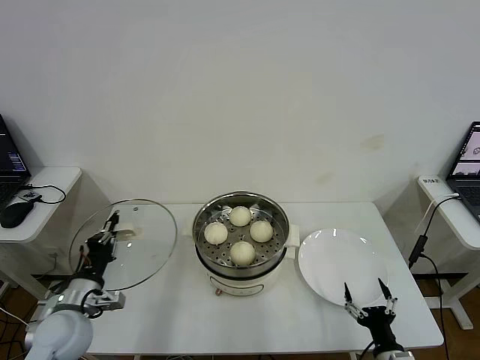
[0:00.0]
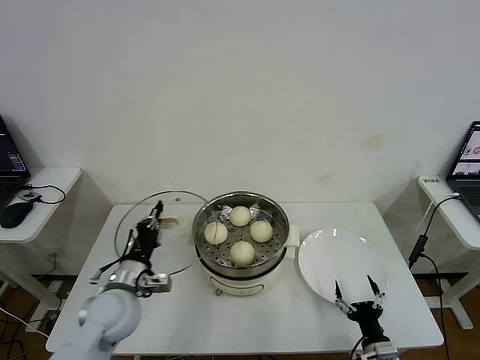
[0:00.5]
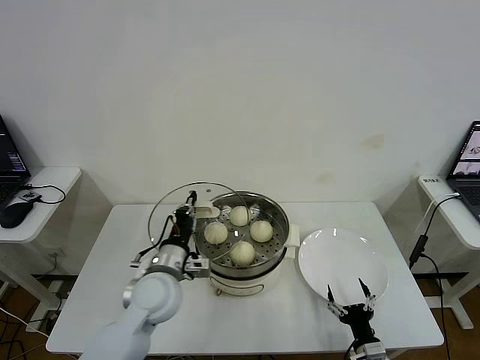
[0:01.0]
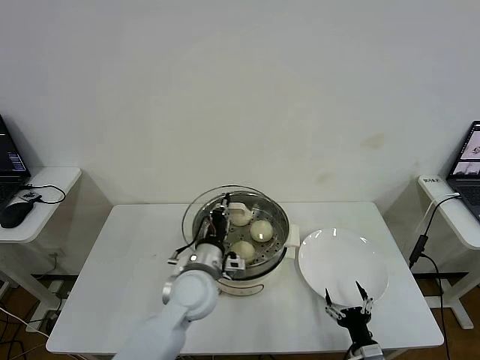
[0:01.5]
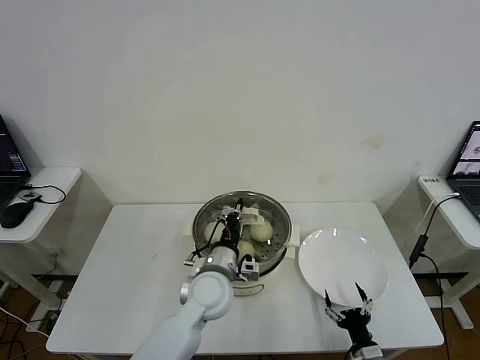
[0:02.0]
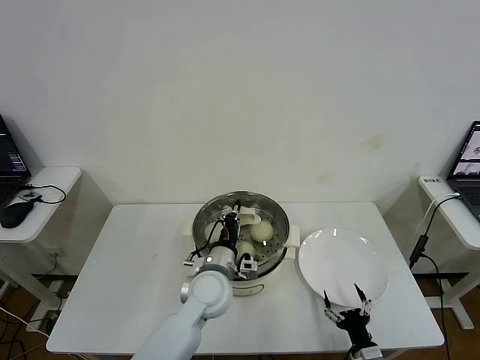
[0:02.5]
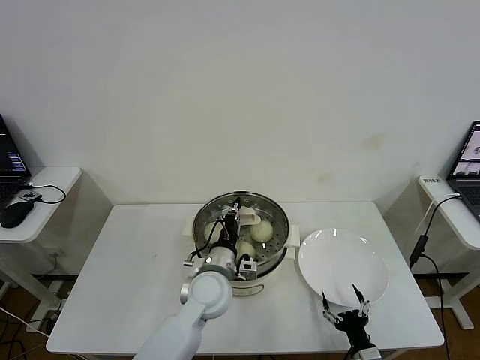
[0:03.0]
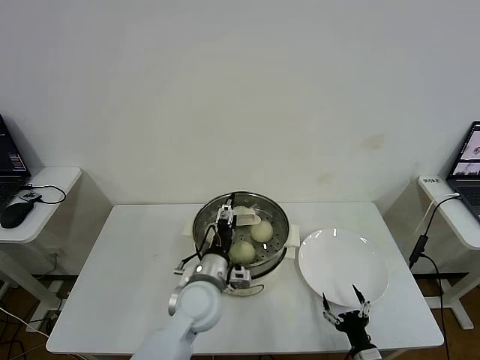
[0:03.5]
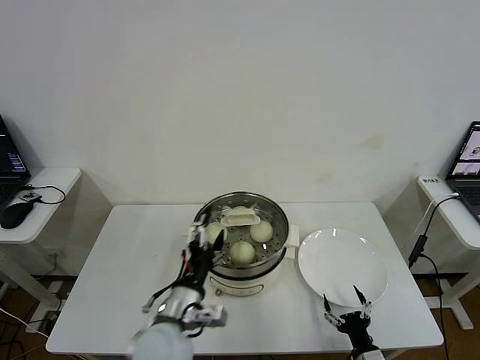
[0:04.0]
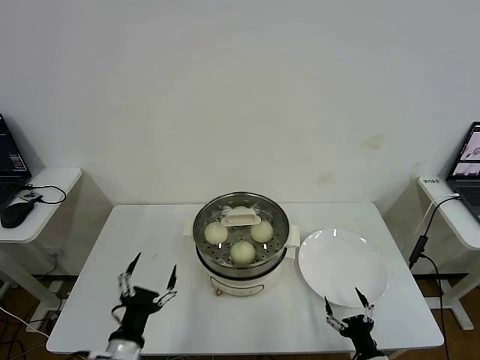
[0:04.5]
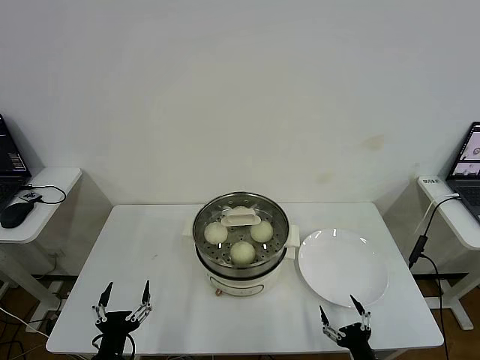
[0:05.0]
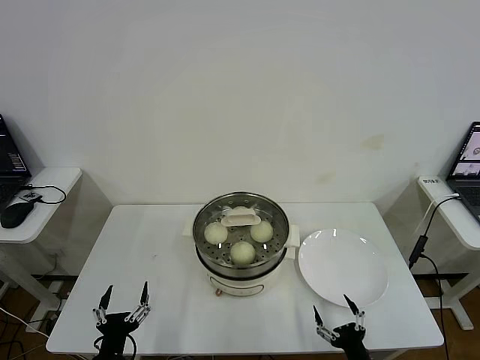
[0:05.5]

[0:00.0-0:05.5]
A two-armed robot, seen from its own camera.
Step, 0:00.0 to 0:03.5: Place the pot lid on the steamer with left gripper.
0:00.0 to 0:02.0: The right gripper moves about 5 cm; the left gripper goes approximately 30 cm to the right.
0:02.0 to 0:03.5: The left gripper opens up.
0:03.5 to 0:05.5: The left gripper moves backward, to the left and downward, approximately 30 cm, while the right gripper shifts by roughly 5 cm.

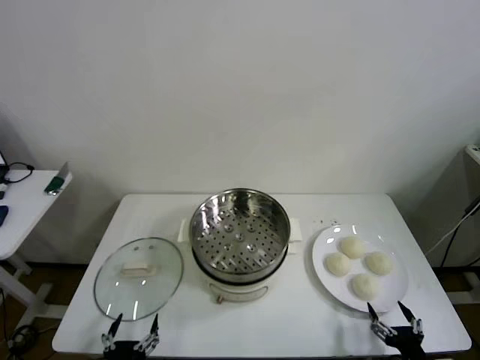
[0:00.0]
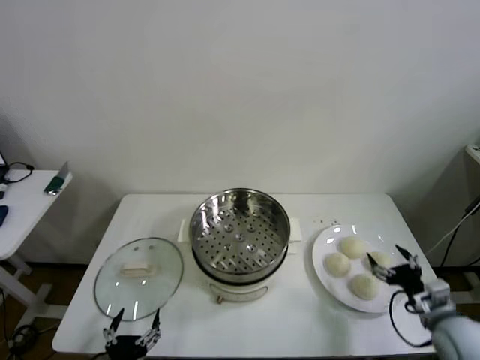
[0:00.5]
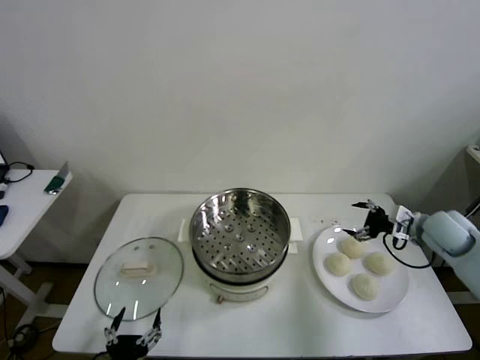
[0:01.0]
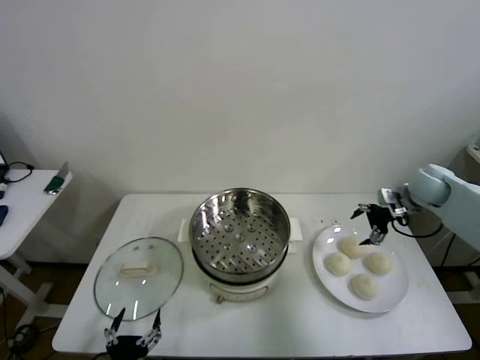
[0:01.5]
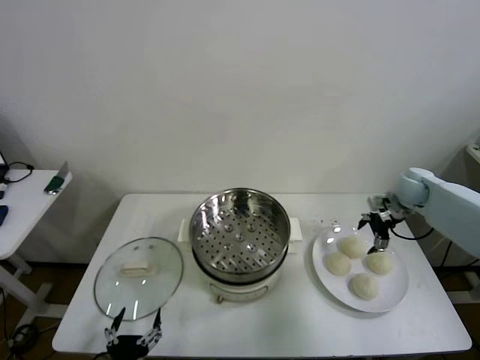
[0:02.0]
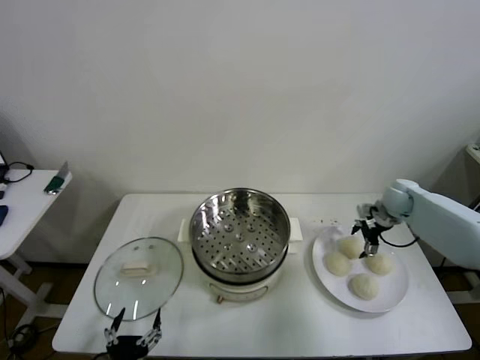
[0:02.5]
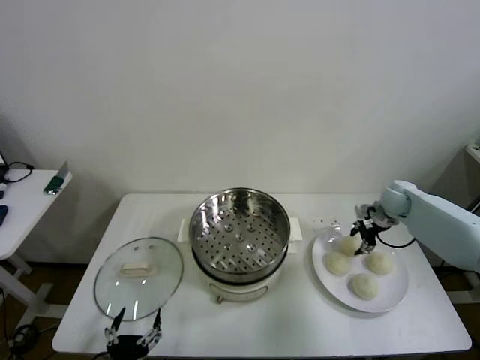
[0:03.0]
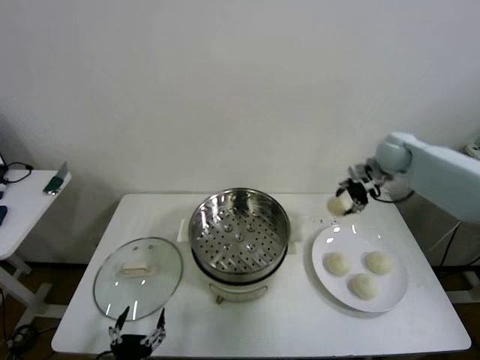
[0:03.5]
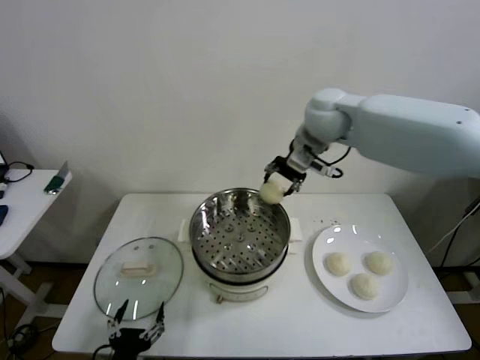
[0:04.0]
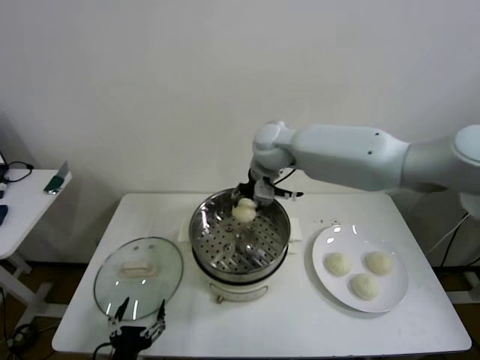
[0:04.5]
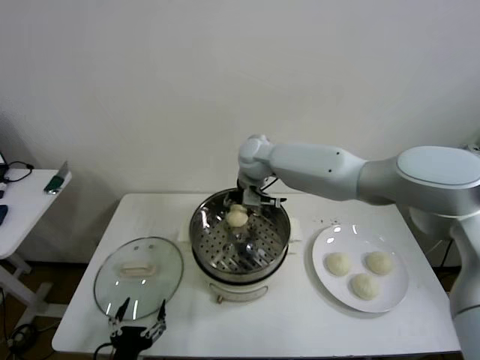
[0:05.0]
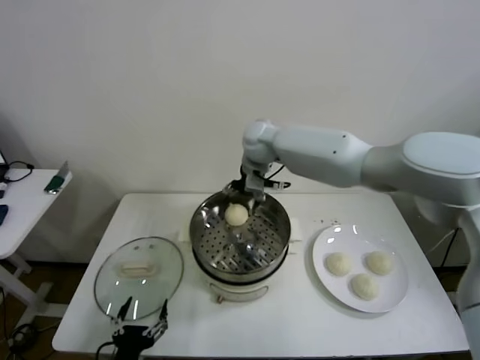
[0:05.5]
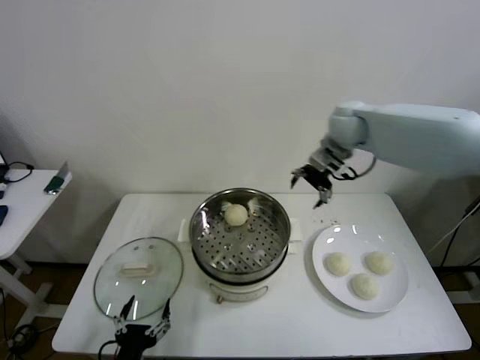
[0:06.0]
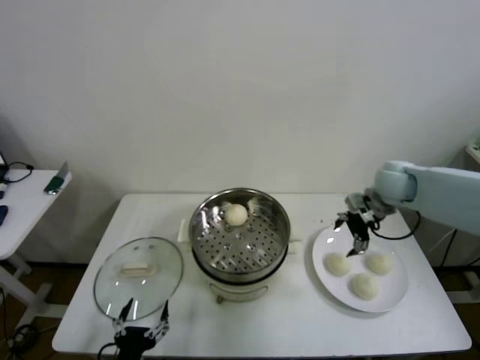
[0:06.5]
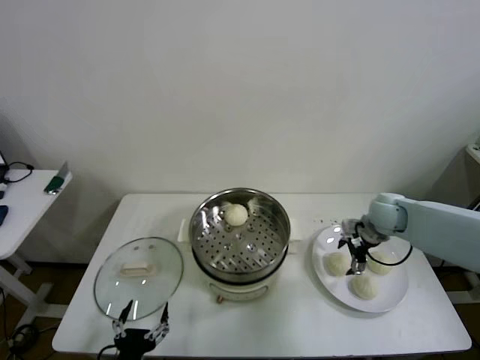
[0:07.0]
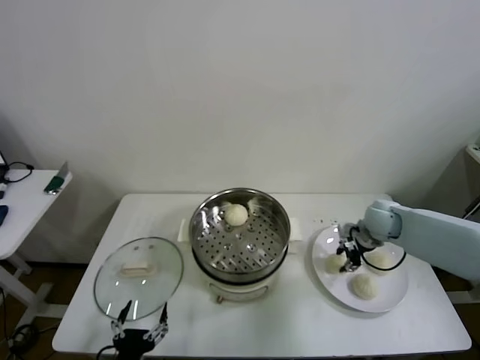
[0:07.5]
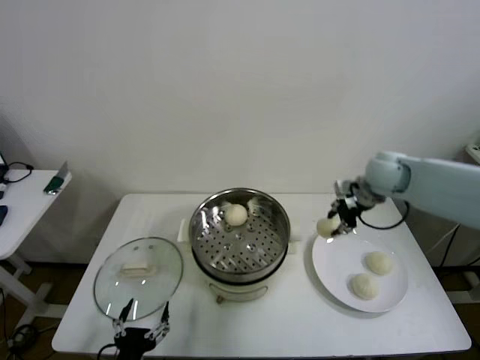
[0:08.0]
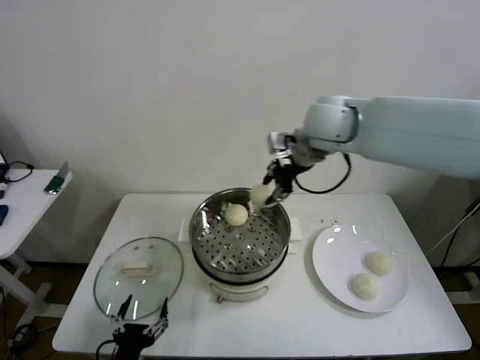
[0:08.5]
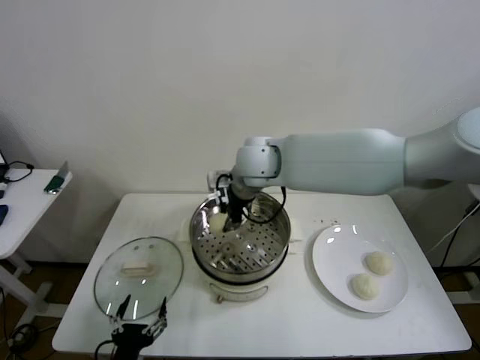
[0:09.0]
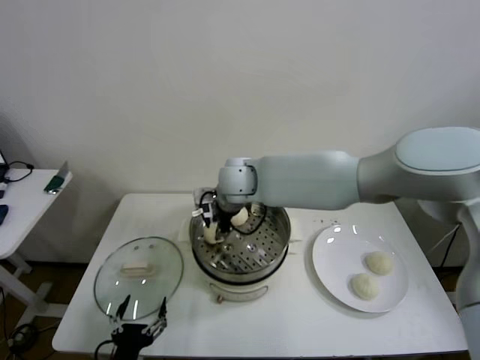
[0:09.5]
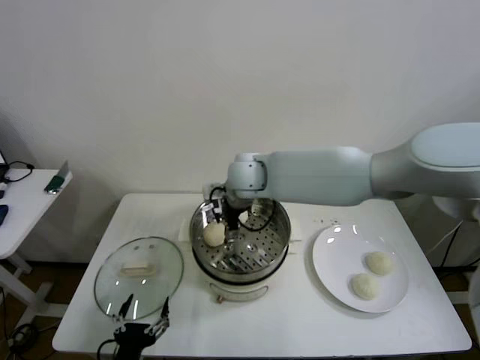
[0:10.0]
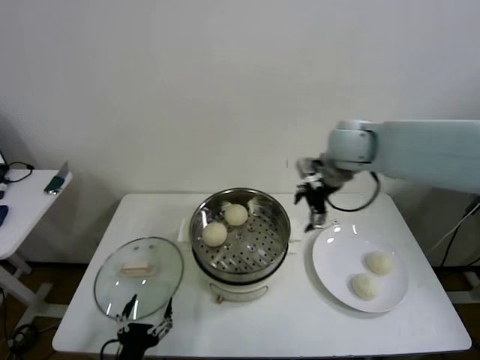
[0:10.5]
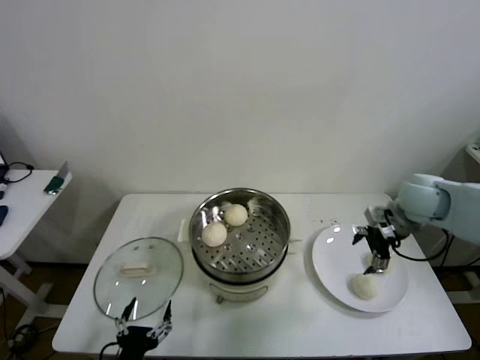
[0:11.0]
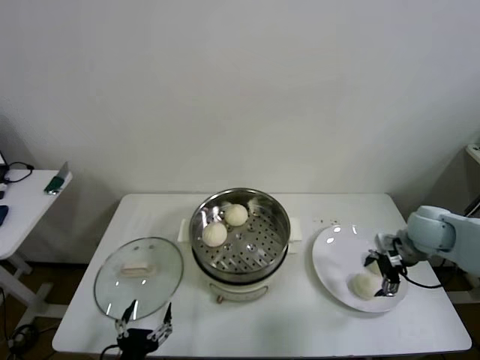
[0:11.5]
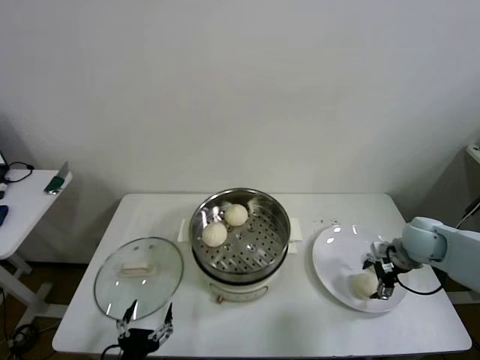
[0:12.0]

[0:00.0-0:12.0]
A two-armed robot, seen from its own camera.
Step, 0:00.0 to 0:03.0: Grasp the baozi in the plate with right gripper.
Step, 0:03.5 to 0:05.0: Place the baozi on the steamer with right gripper.
Step, 0:05.5 to 0:07.0: Grasp the baozi in the plate with right gripper.
Step, 0:08.0 to 0:10.0: Place the baozi on the steamer with right gripper.
0:02.0 to 0:04.0: The right gripper is displaced to the left and upward by about 35 cm, and closes its fingers.
0:04.0 to 0:06.0: The right gripper travels to the right by approximately 15 cm, and opens up.
0:06.0 to 0:08.0: The right gripper goes downward and returns, about 20 cm each way, and closes its fingers.
0:08.0 to 0:10.0: The right gripper shifts roughly 25 cm to the left, and opens its fingers.
0:10.0 to 0:12.0: The right gripper travels to the right by roughly 40 cm.

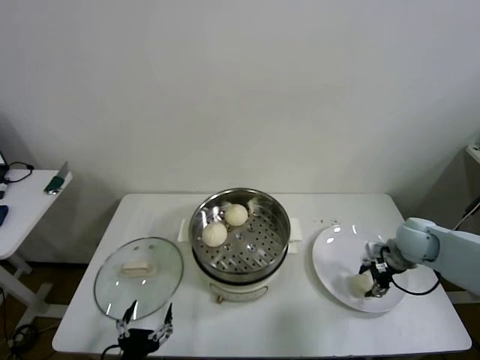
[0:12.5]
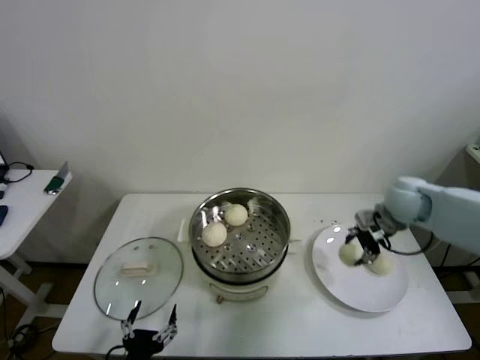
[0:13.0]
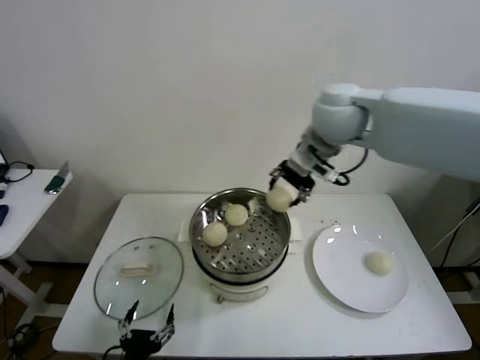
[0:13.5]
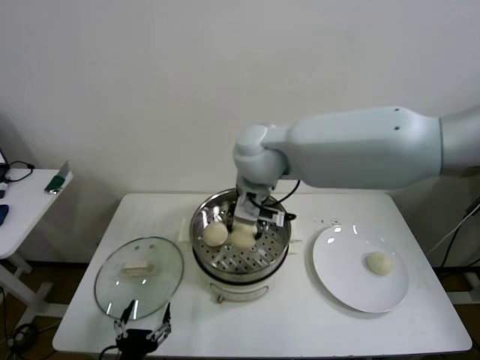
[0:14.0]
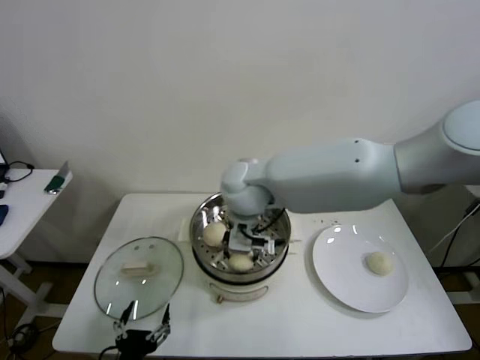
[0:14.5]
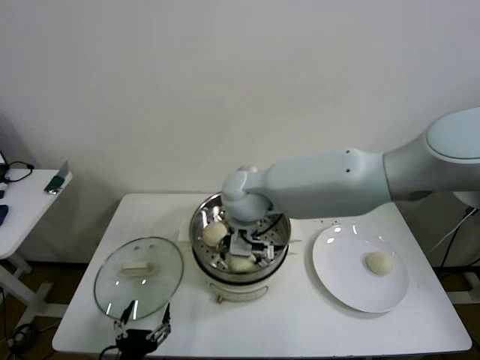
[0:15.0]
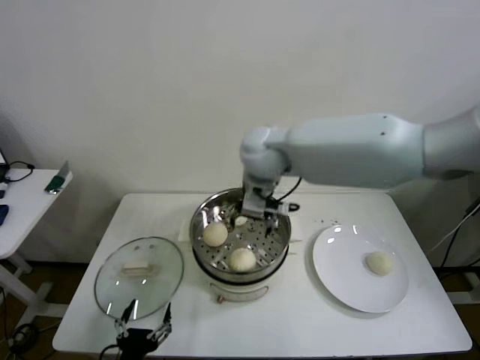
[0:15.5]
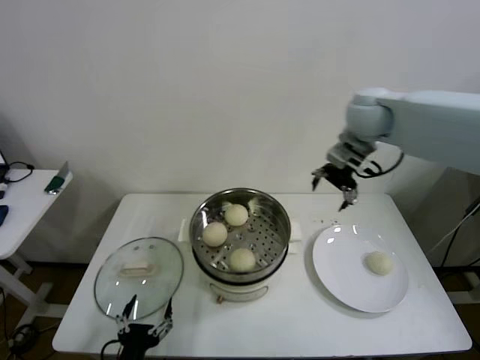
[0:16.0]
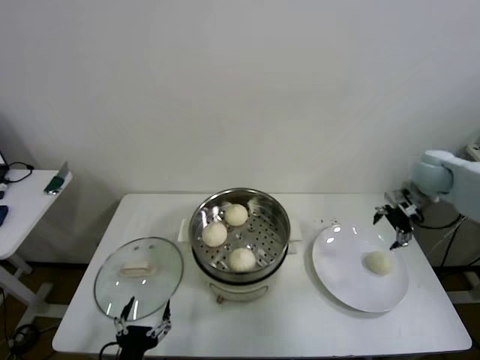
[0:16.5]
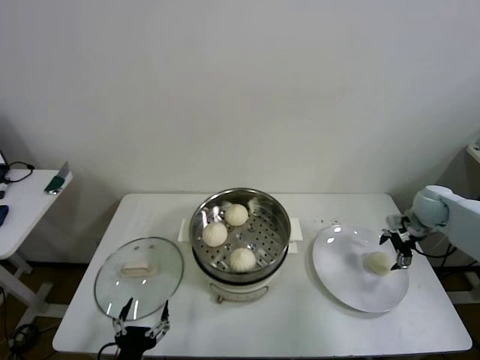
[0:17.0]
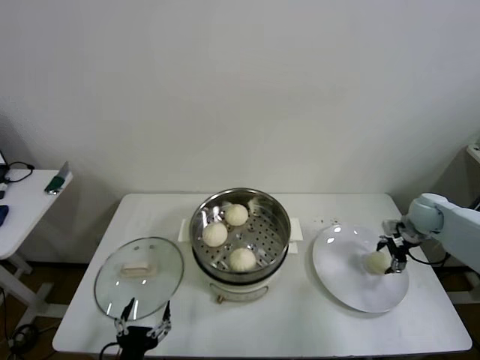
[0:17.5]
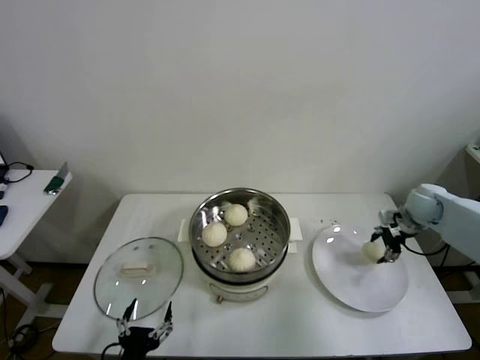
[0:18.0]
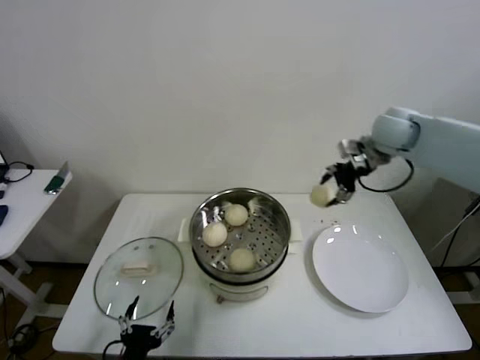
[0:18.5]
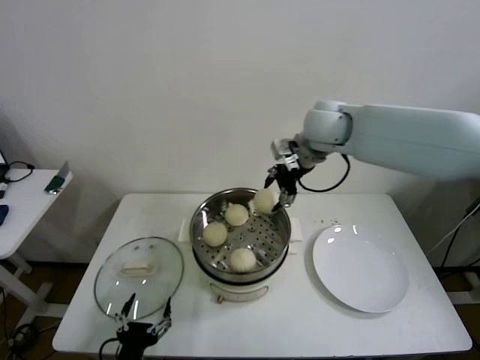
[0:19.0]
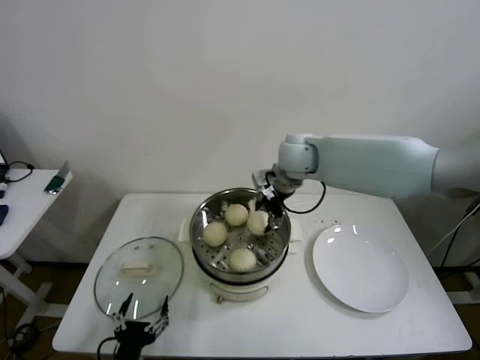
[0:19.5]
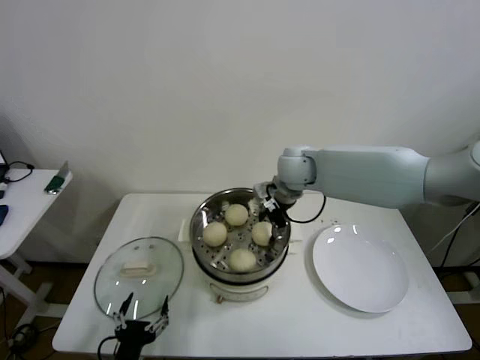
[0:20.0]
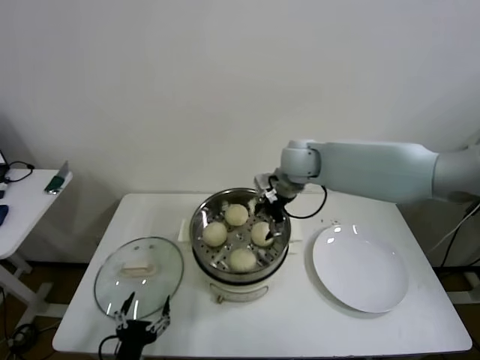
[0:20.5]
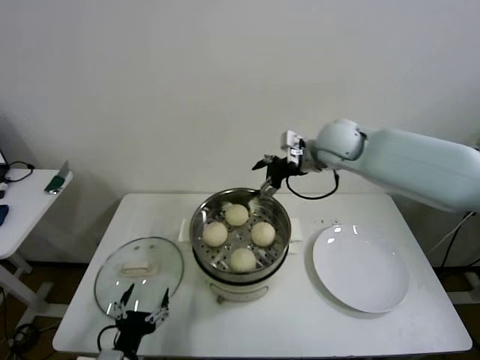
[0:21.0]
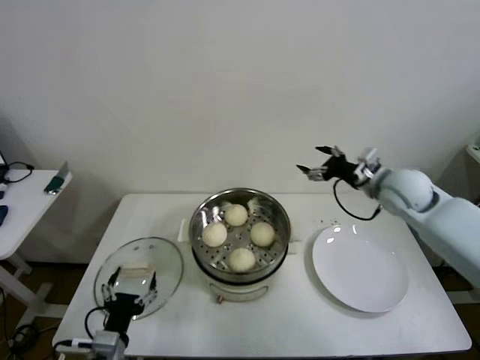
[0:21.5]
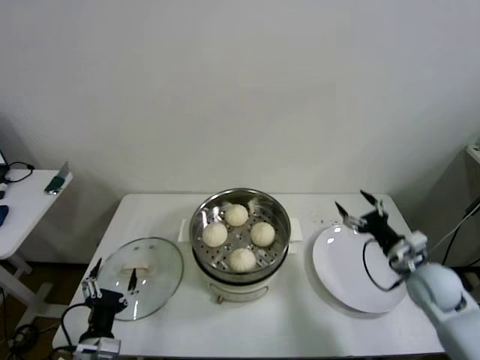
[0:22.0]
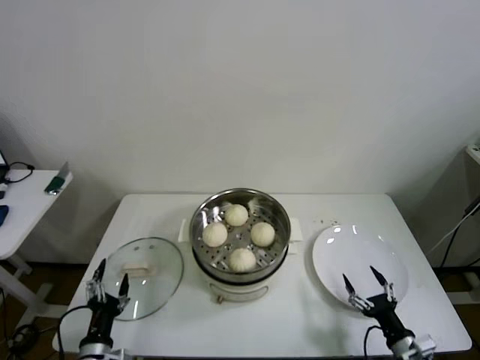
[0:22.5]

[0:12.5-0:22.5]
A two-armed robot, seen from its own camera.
Step, 0:12.5 to 0:15.0: Place the baozi on the steamer with right gripper.
Step, 0:15.5 to 0:17.5: Grasp the baozi in the plate with right gripper.
Step, 0:18.0 to 0:20.0: Place the baozi on the steamer with right gripper.
0:12.5 to 0:14.5: The right gripper travels to the left and upward by some 40 cm.
0:14.5 to 0:16.5: The right gripper goes some 40 cm to the right, and opens its fingers.
0:16.5 to 0:18.5: The right gripper shifts approximately 15 cm to the left and upward, and closes up.
0:18.5 to 0:20.5: The right gripper heads to the left, covering about 20 cm, and opens.
0:20.5 to 0:22.5: The right gripper is displaced backward, downward and to the right by about 50 cm; the left gripper shifts about 5 cm to the left.
